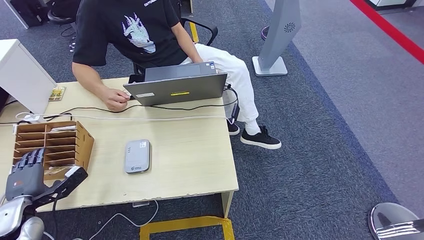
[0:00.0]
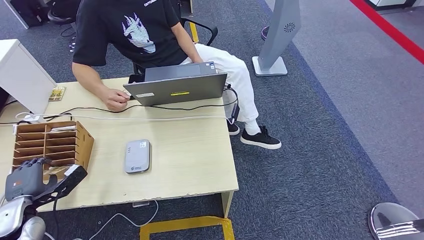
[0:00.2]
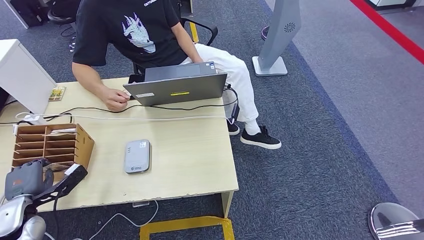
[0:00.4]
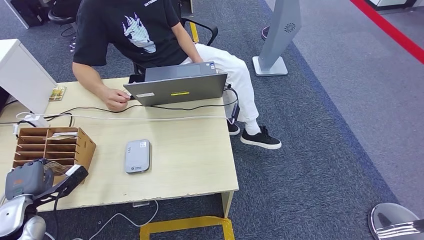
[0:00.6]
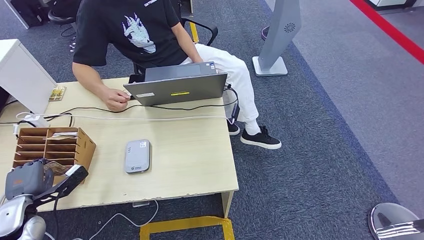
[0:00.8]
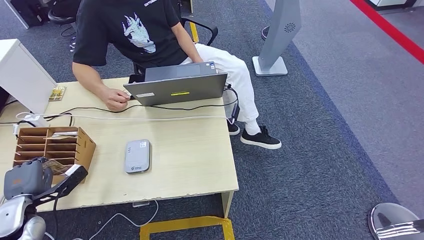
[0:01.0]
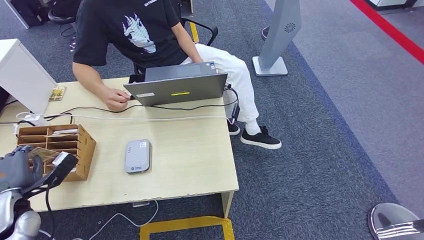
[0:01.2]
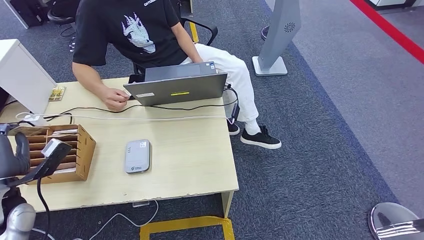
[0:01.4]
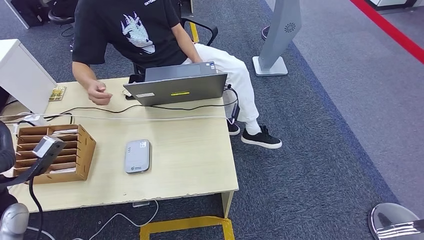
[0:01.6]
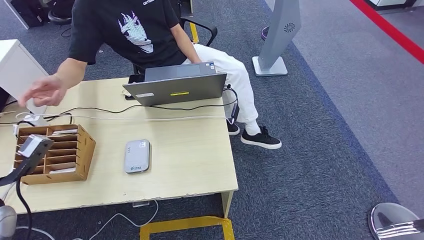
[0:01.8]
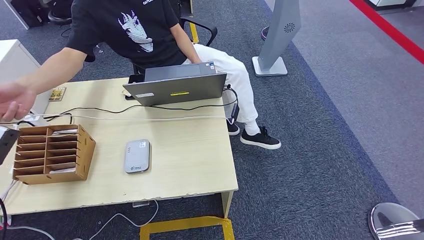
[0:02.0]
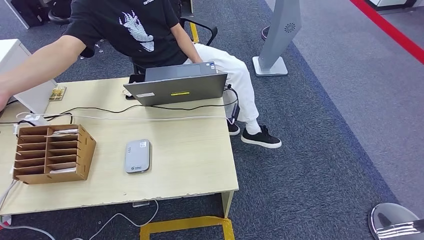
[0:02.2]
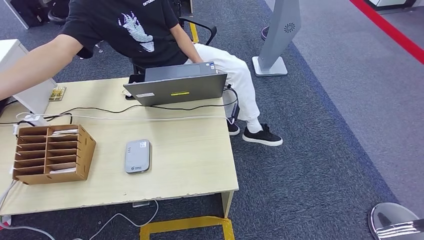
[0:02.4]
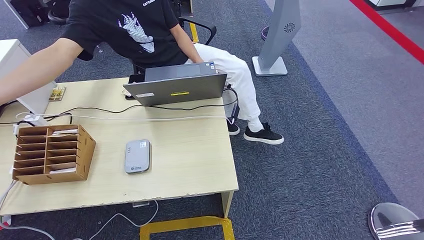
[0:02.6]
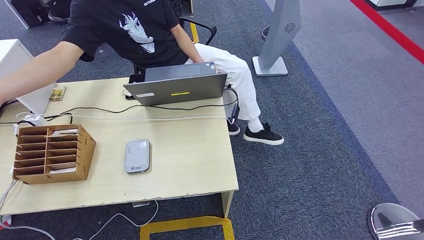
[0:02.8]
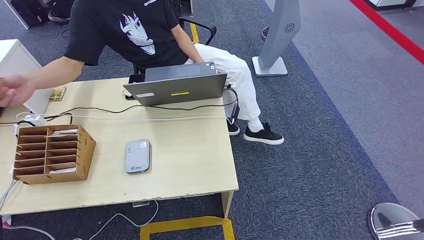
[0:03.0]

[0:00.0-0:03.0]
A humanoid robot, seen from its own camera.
Step, 0:01.4 to 0:03.0: Hand the room key to the person.
0:00.0 to 0:01.6: The left hand goes approximately 15 cm upward.
0:01.6 to 0:03.0: The left hand moves to the left, some 10 cm.
